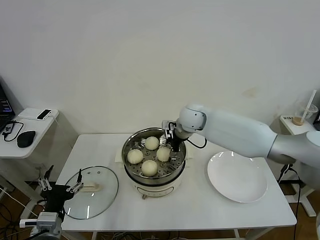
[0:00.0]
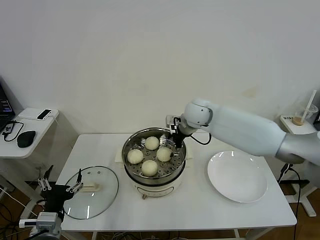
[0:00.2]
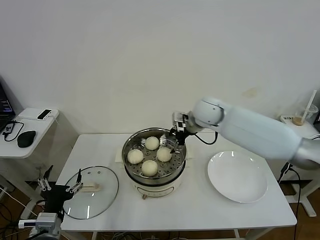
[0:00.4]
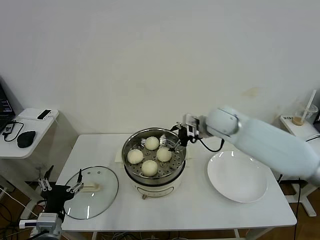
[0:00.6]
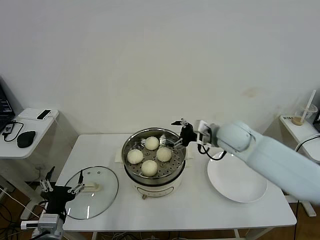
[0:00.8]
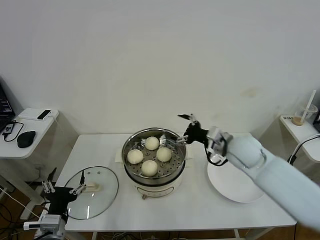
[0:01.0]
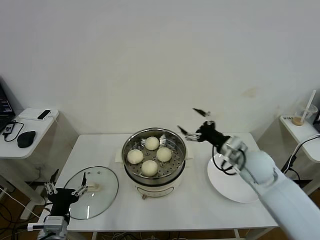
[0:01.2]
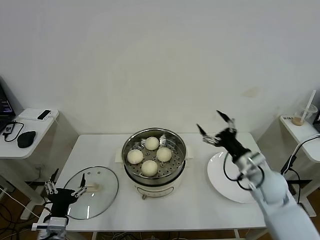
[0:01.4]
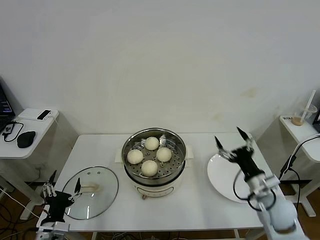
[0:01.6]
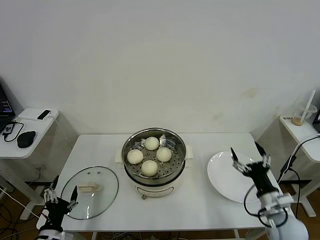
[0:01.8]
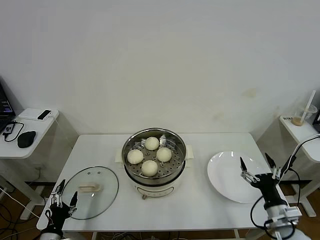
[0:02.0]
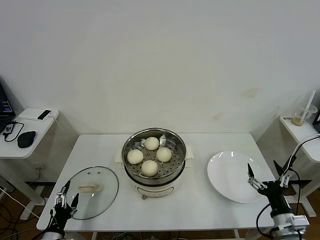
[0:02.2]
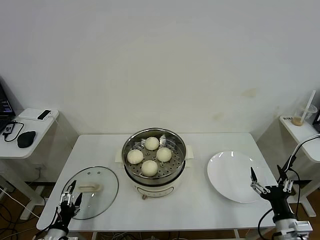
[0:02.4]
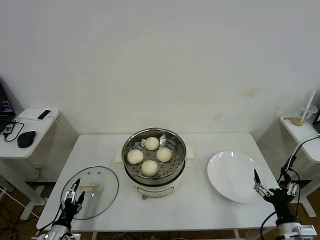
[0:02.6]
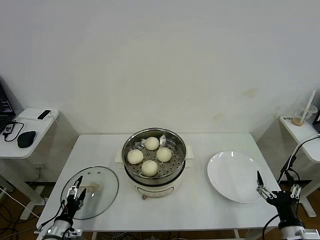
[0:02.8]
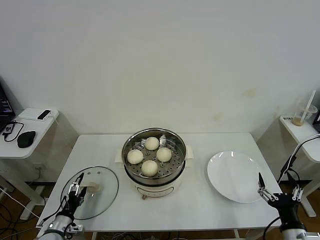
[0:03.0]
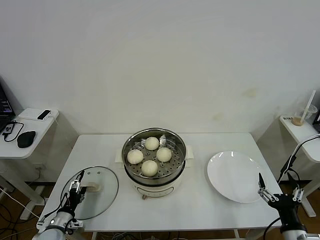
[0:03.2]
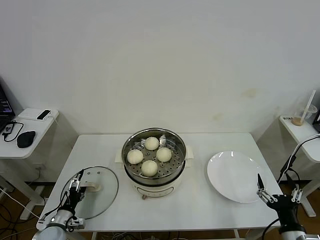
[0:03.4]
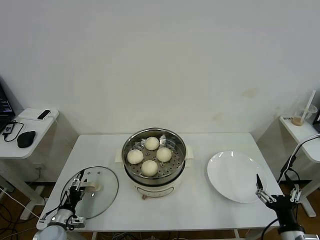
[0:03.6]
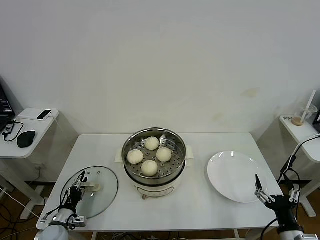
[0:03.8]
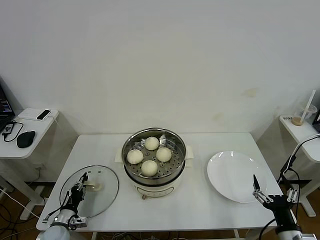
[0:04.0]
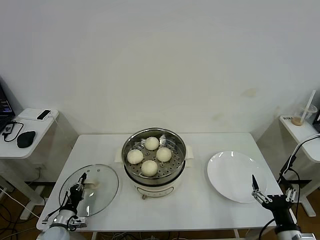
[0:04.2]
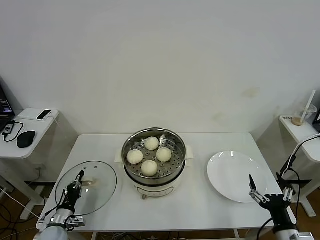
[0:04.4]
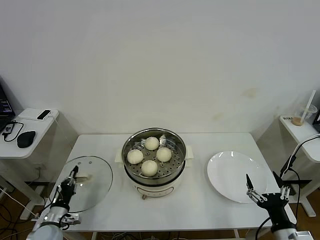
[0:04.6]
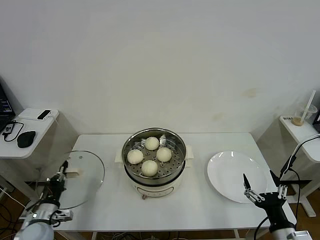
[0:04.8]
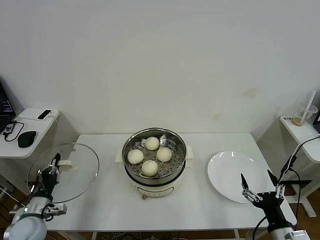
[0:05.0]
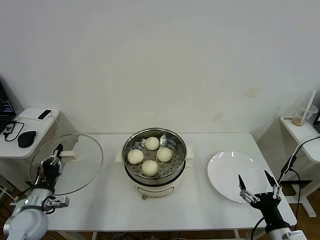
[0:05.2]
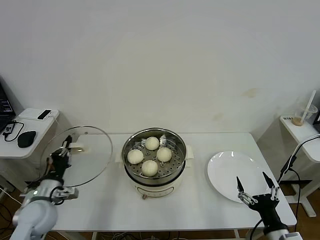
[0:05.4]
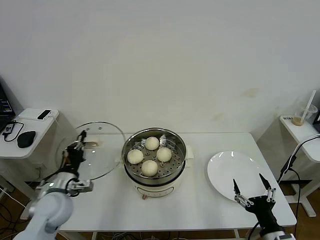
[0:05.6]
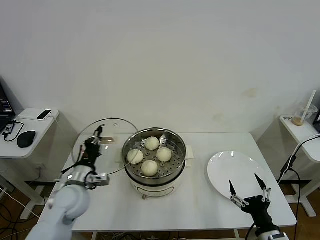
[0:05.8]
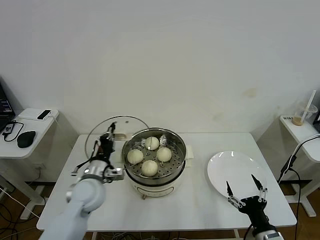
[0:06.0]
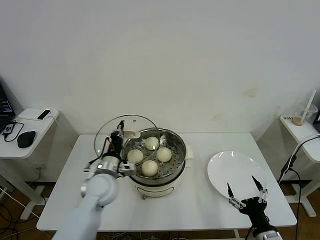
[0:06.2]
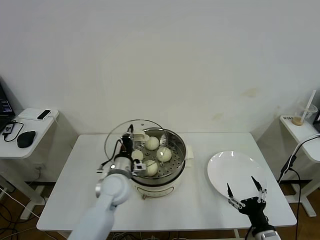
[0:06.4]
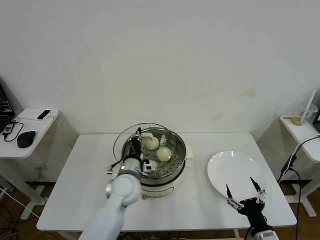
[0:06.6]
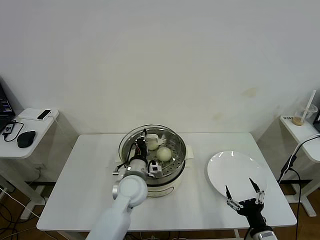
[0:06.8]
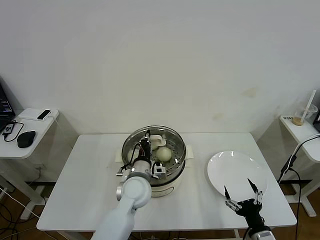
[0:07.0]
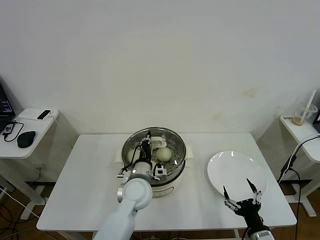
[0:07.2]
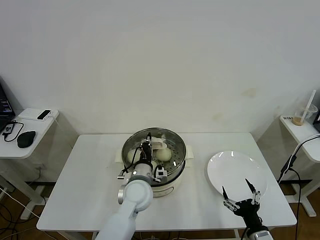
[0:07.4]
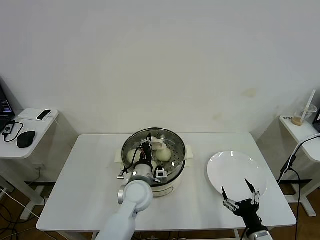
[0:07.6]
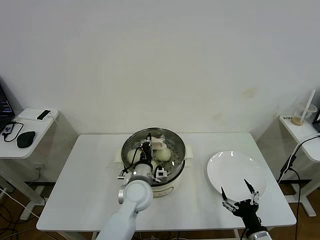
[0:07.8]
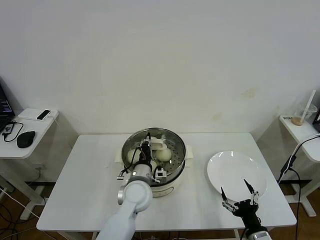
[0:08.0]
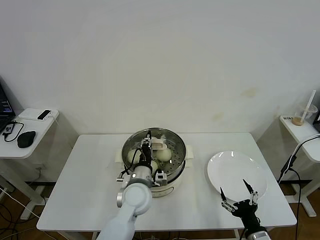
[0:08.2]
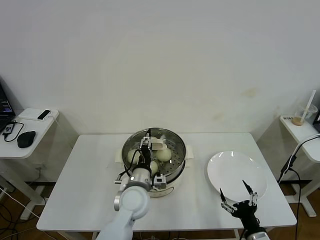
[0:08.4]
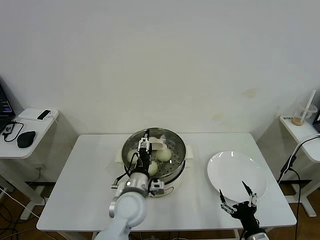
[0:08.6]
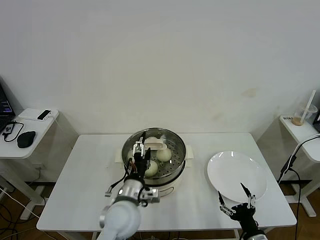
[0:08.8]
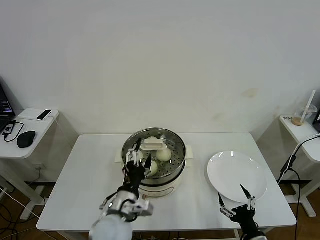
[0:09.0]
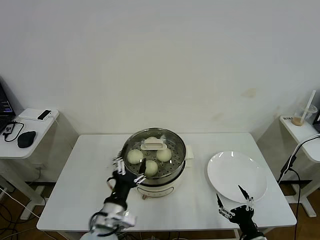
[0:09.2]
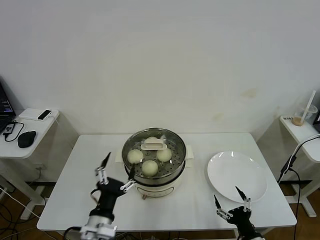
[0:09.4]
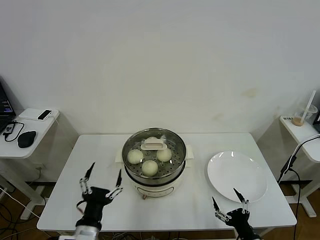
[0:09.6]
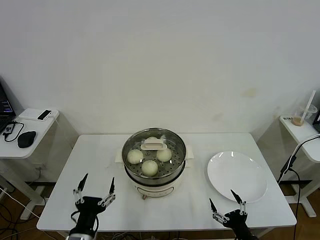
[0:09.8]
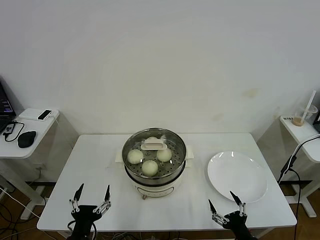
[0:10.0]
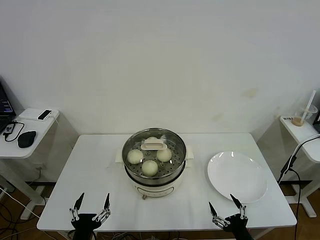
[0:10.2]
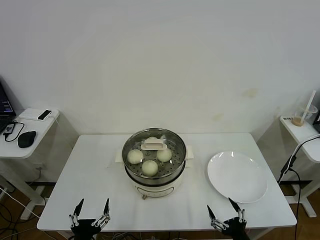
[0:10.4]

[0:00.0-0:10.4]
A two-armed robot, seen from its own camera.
Task of the whole recording: take steamed baozi put them in steamer then cover it.
Step, 0:00.4 to 0:04.4: Grasp the pot lid with left gripper.
Step, 0:04.6 to 0:08.8: Place the pot lid on the steamer with left gripper.
0:00.0 to 0:01.4: The right gripper shifts about 30 cm backward, to the right and downward.
0:01.4 to 0:03.0: The left gripper heads downward and to the left, covering about 15 cm, while the right gripper heads backward, covering roughly 20 cm.
0:03.0 to 0:04.4: The left gripper closes.
0:04.4 to 0:06.0: The left gripper moves upward, to the right and forward, some 25 cm.
0:06.0 to 0:07.4: The left gripper shifts about 15 cm to the right.
0:07.4 to 0:09.0: The left gripper moves backward, roughly 10 cm, and opens.
0:09.0 to 0:10.4: The left gripper shifts about 20 cm backward, to the left and downward.
